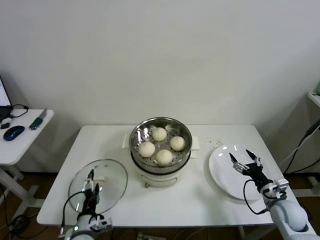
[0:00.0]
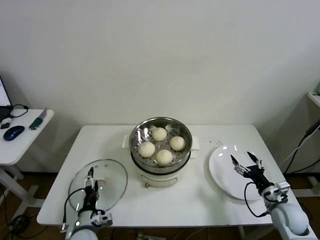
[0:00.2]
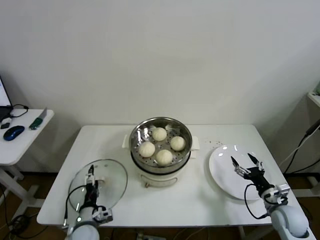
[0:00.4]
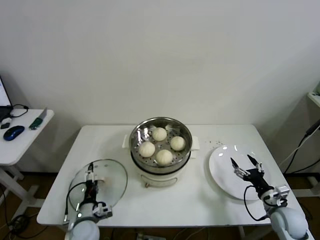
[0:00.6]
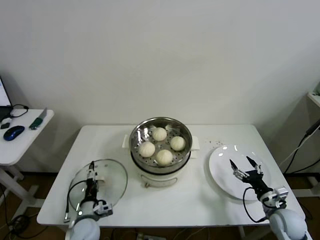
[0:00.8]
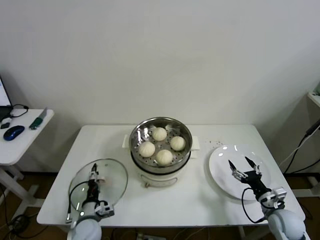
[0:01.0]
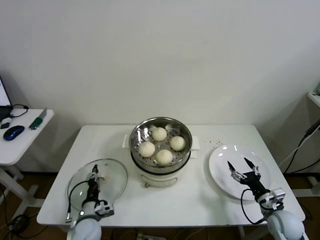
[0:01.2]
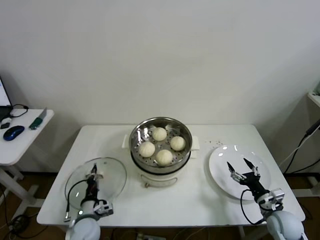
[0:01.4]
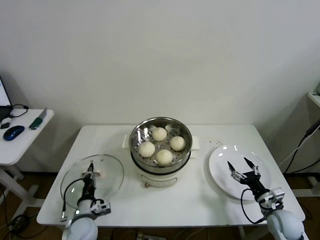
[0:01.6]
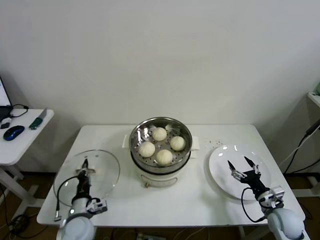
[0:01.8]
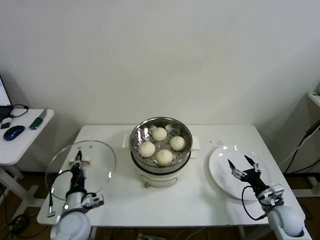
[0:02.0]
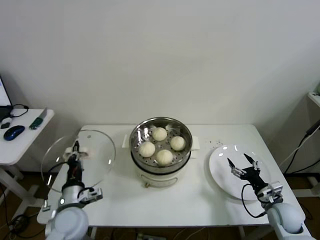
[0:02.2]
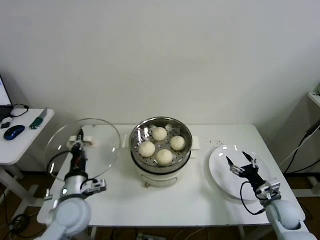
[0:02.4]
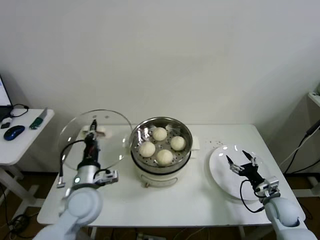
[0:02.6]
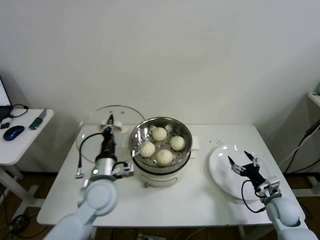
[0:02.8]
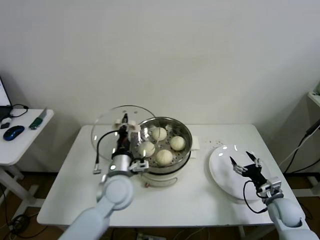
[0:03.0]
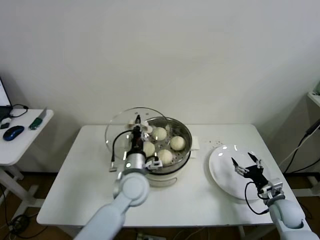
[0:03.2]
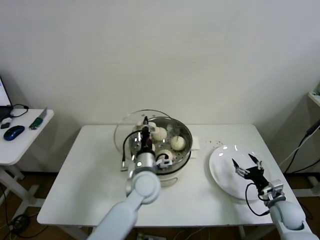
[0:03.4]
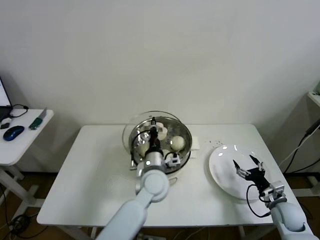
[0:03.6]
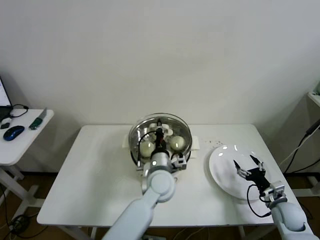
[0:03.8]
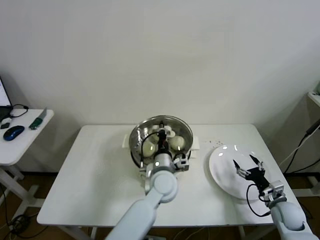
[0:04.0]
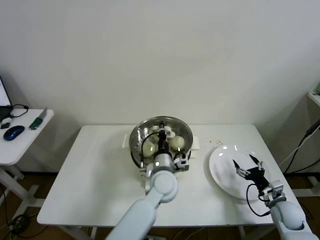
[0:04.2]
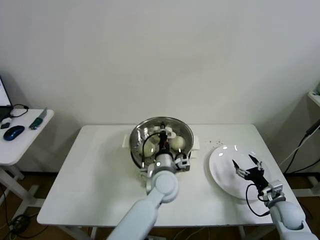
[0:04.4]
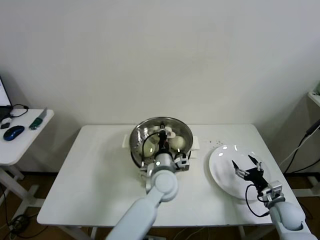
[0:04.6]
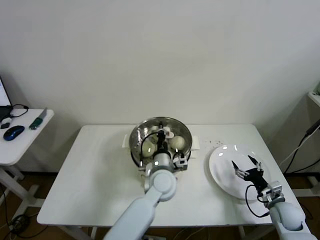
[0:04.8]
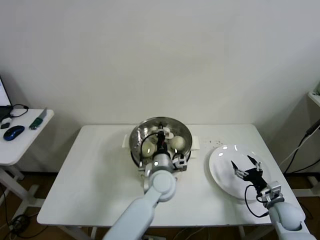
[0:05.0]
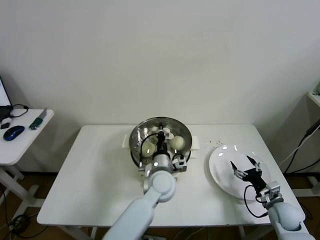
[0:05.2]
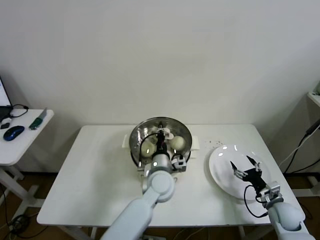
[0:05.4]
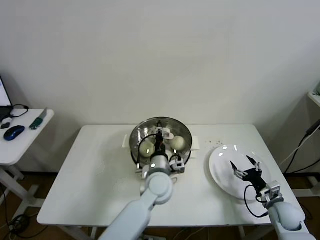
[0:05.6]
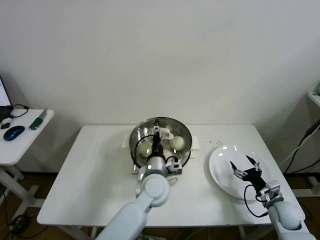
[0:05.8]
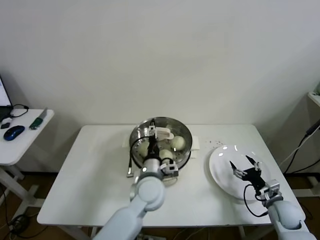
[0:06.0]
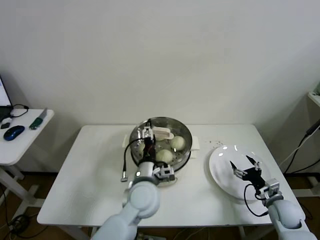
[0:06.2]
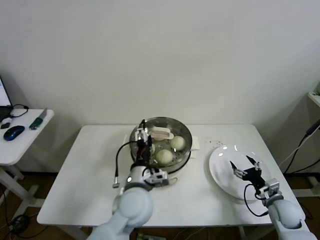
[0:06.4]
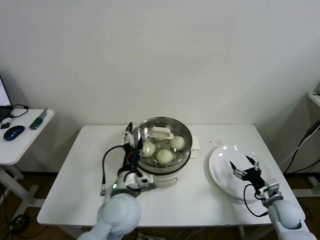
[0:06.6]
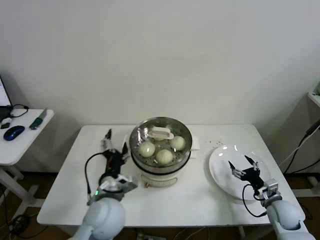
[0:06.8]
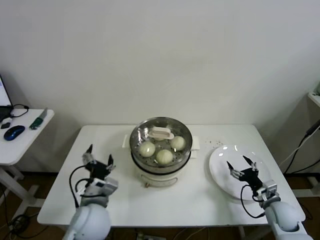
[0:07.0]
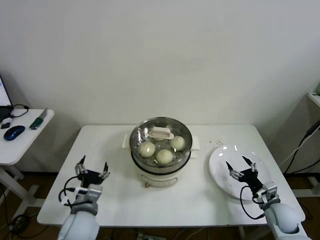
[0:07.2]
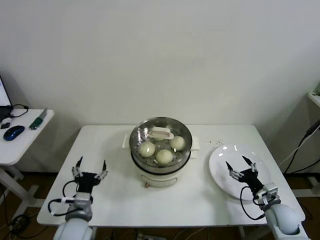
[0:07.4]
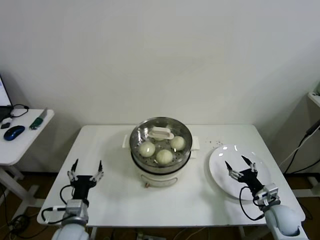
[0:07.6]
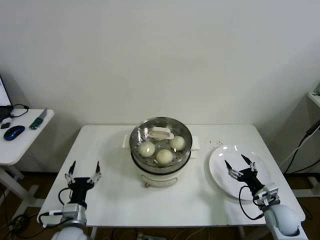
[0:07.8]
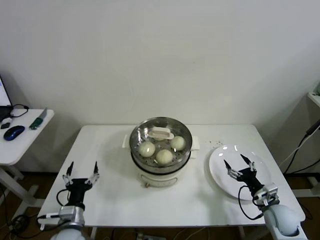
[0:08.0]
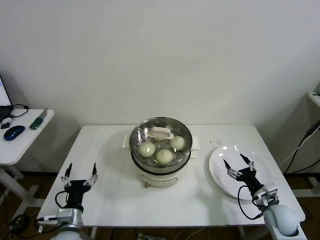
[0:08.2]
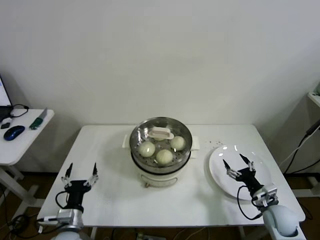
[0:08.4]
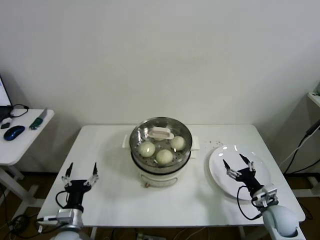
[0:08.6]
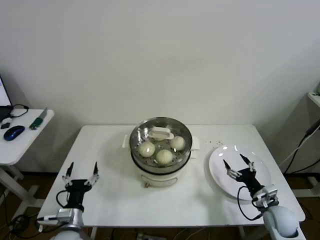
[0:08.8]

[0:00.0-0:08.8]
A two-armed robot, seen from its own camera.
Step, 0:01.6 to 0:05.4: Place the pot lid on the steamer with left gripper.
0:00.0 to 0:01.4: The left gripper is displaced forward by roughly 5 cm, and closes its fingers.
0:01.4 to 0:03.0: The left gripper moves upward and to the right, approximately 25 cm.
0:03.0 to 0:04.4: The left gripper travels to the right by roughly 15 cm.
0:04.4 to 0:05.8: The left gripper opens up.
0:05.8 to 0:07.4: The left gripper is displaced to the left and backward by some 25 cm, and opens its fingers.
0:07.4 to 0:08.8: The left gripper travels downward by approximately 5 cm.
